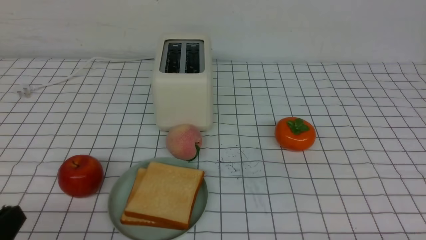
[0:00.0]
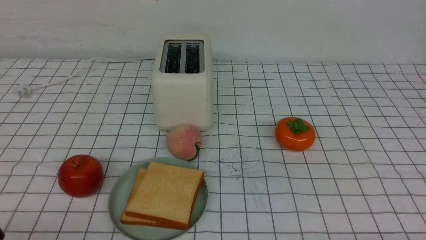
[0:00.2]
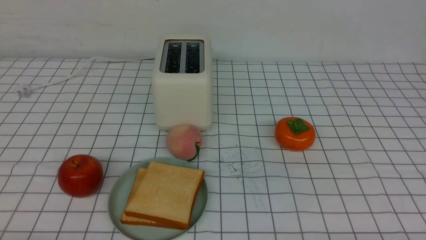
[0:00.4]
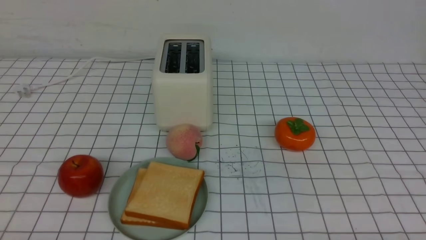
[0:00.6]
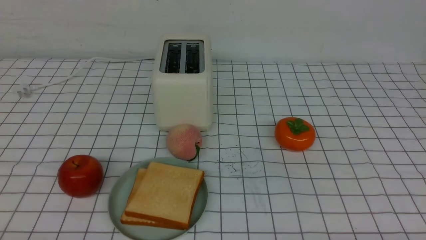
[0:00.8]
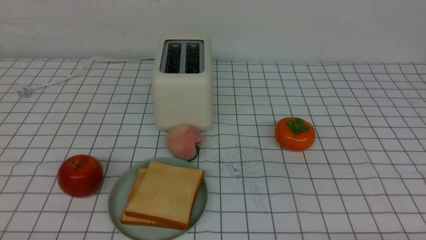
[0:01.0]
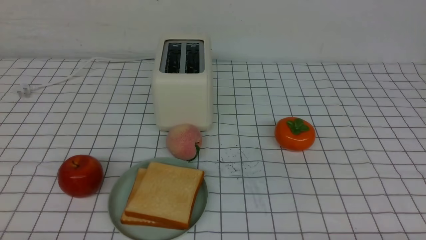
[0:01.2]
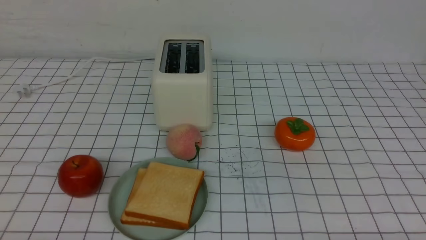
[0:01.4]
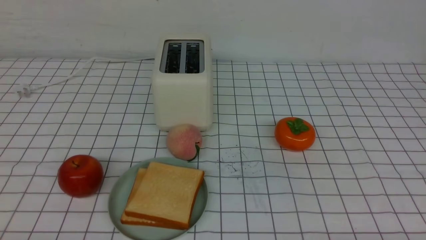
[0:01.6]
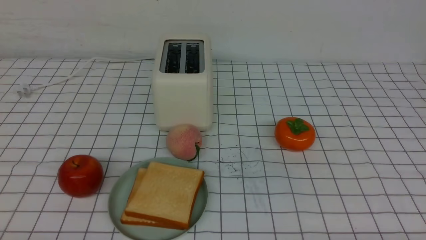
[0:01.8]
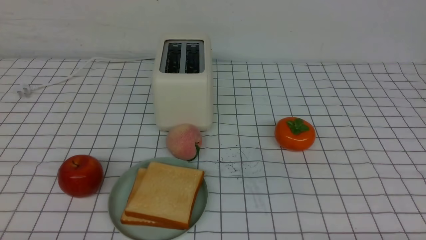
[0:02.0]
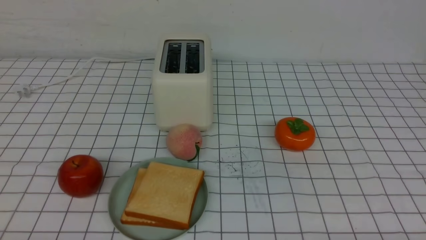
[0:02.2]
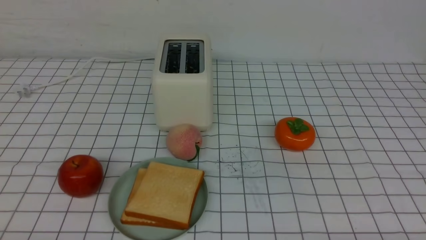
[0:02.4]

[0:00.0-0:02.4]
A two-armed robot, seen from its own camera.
Task of the whole recording: take toasted bread from bread machine on white checkered table place on plate.
0.0 to 1.2 s: The left gripper is displaced downward by roughly 5 cm.
1.2 to 2.4 s: Both grippers stay put.

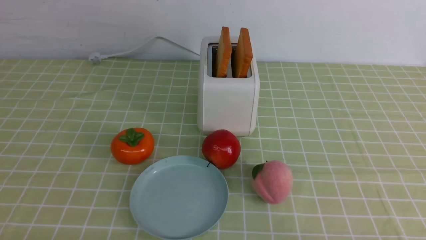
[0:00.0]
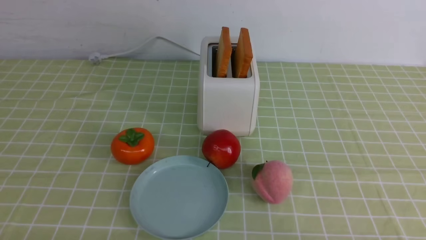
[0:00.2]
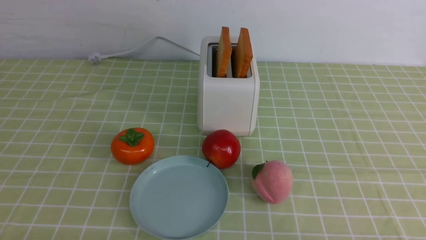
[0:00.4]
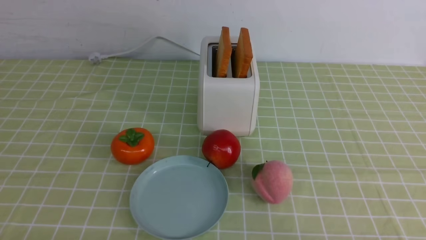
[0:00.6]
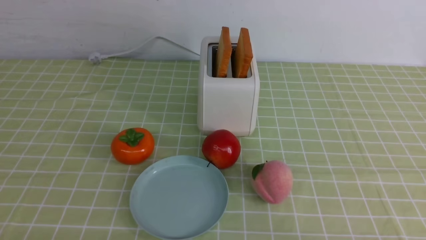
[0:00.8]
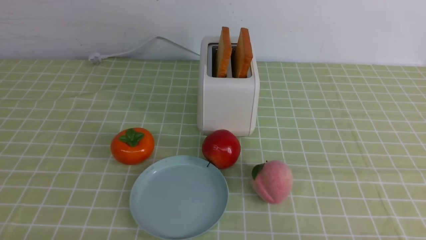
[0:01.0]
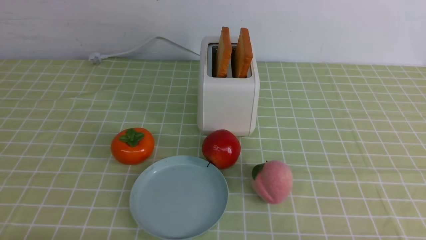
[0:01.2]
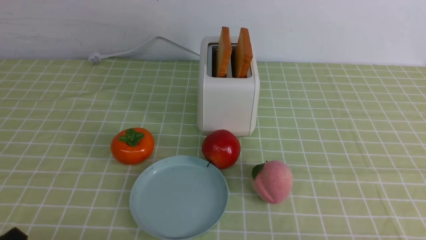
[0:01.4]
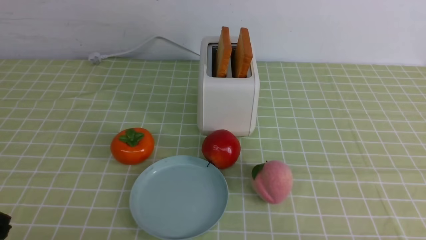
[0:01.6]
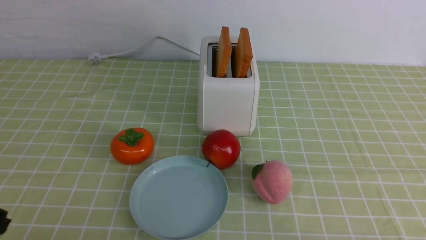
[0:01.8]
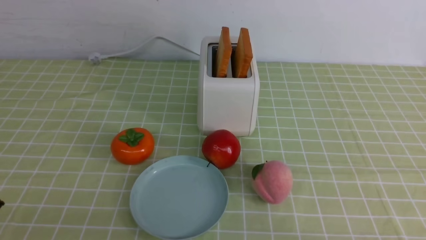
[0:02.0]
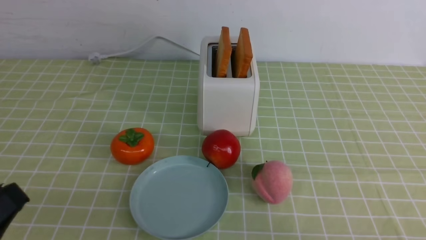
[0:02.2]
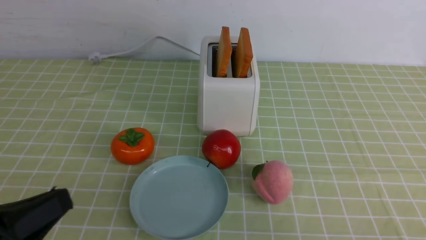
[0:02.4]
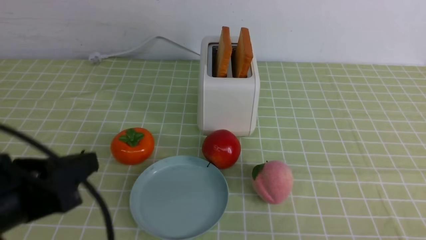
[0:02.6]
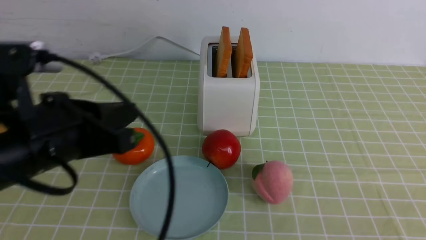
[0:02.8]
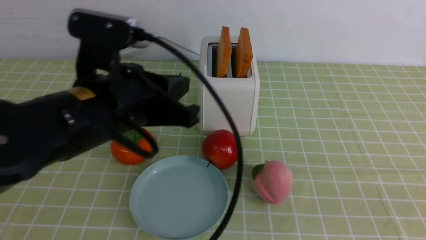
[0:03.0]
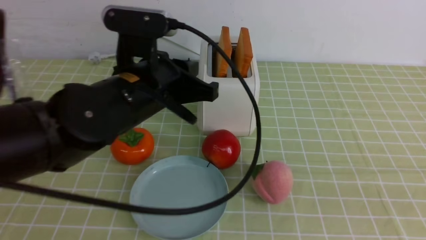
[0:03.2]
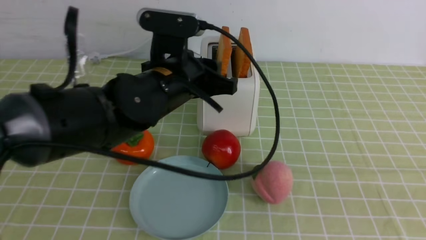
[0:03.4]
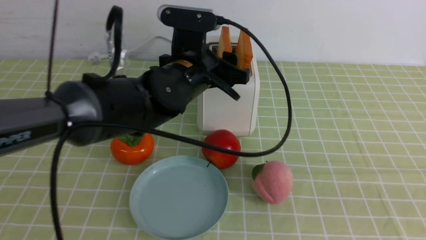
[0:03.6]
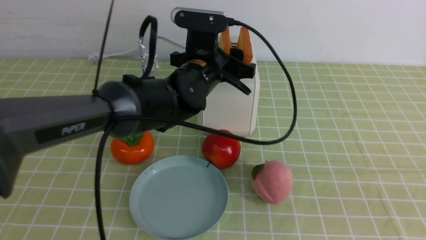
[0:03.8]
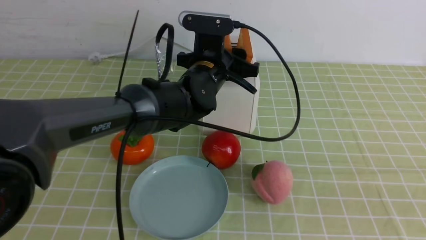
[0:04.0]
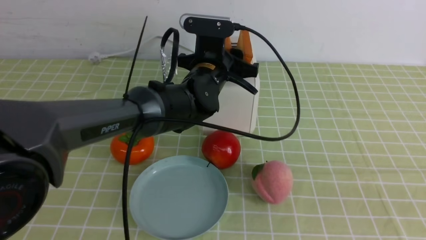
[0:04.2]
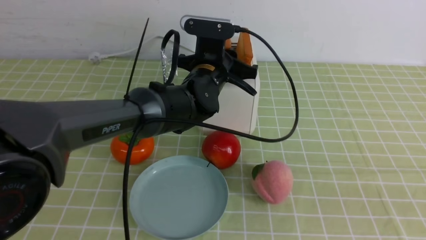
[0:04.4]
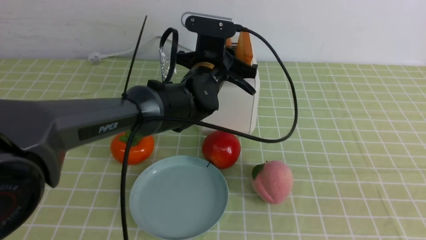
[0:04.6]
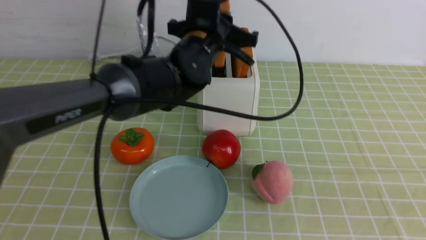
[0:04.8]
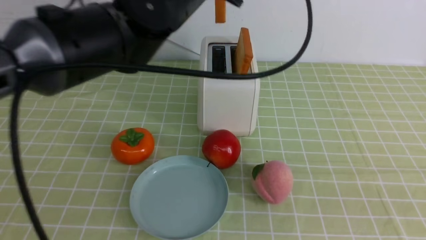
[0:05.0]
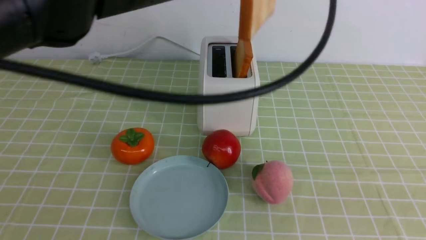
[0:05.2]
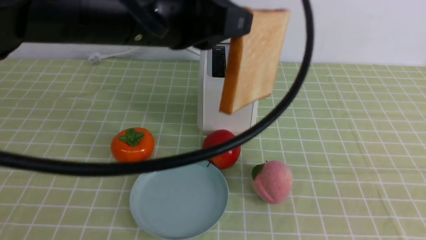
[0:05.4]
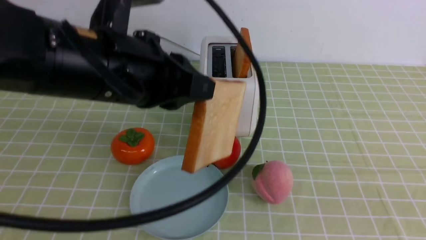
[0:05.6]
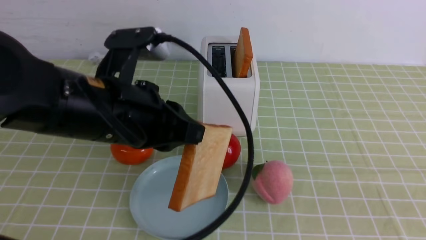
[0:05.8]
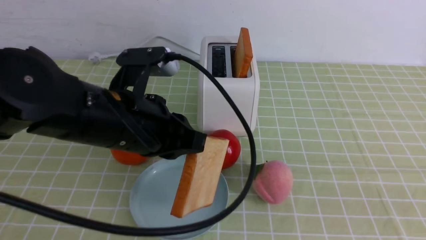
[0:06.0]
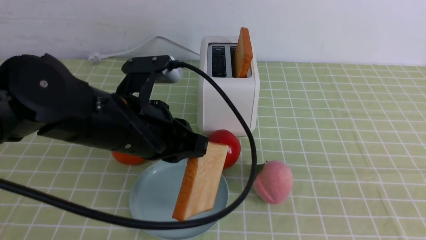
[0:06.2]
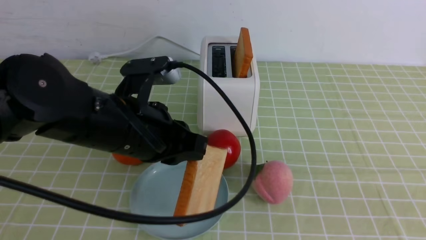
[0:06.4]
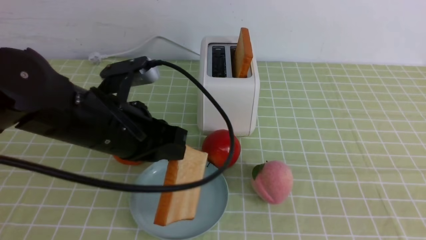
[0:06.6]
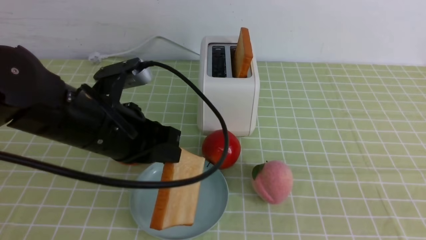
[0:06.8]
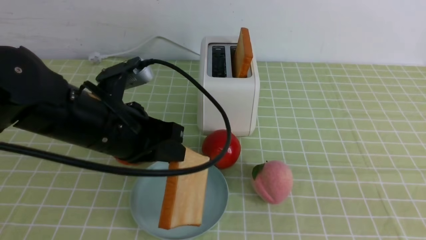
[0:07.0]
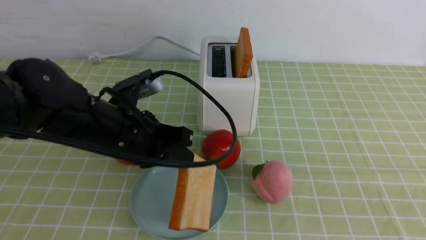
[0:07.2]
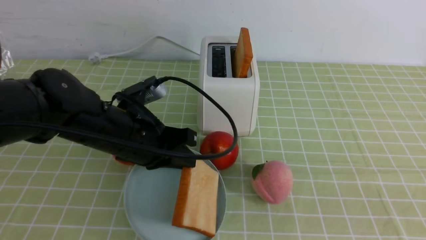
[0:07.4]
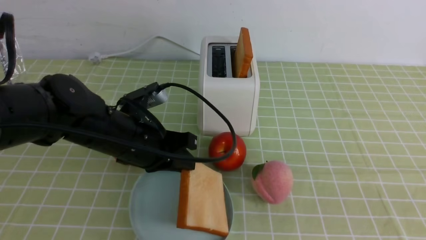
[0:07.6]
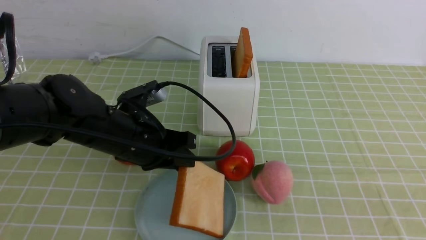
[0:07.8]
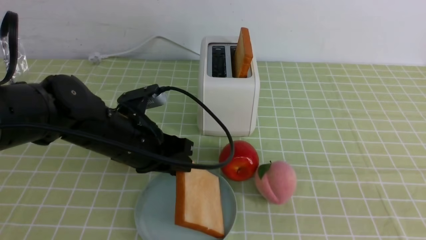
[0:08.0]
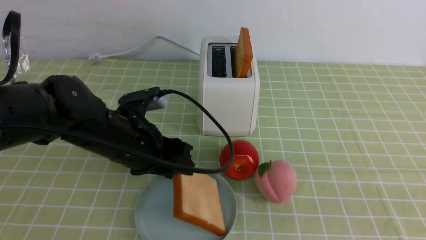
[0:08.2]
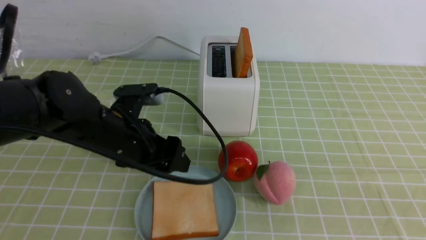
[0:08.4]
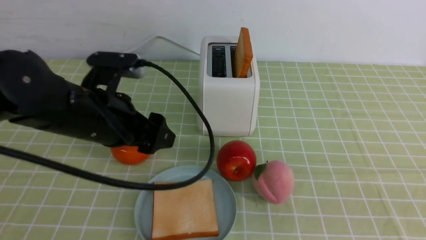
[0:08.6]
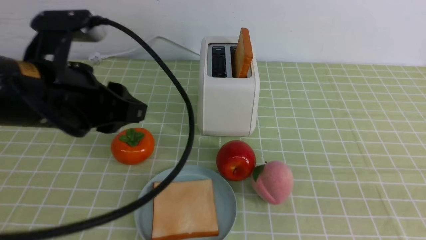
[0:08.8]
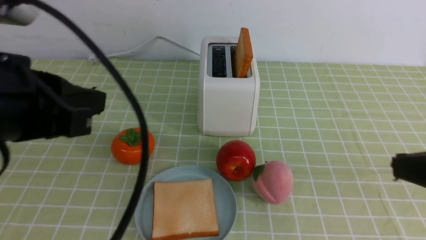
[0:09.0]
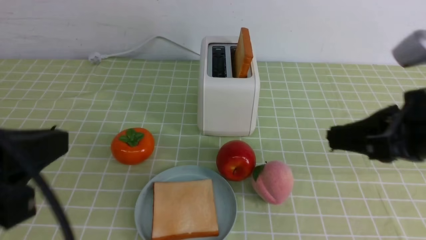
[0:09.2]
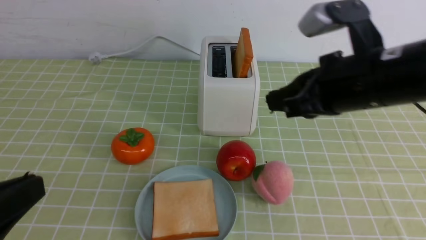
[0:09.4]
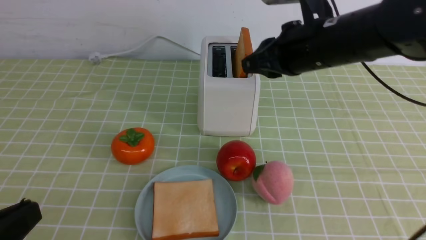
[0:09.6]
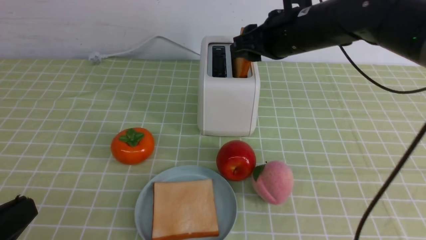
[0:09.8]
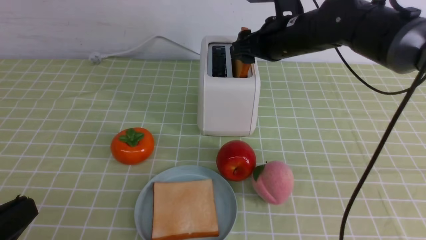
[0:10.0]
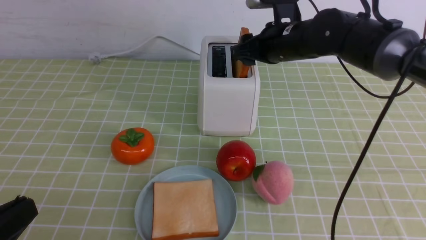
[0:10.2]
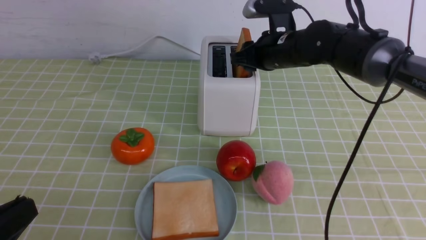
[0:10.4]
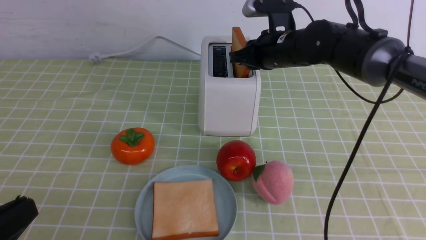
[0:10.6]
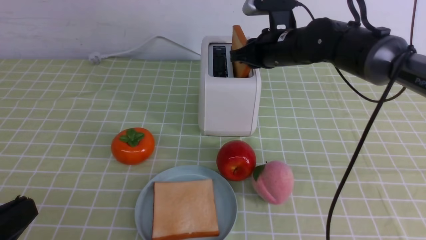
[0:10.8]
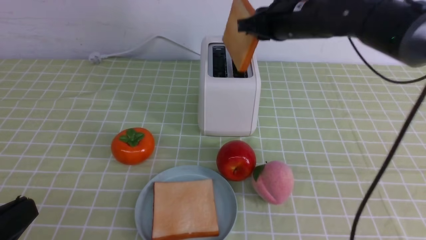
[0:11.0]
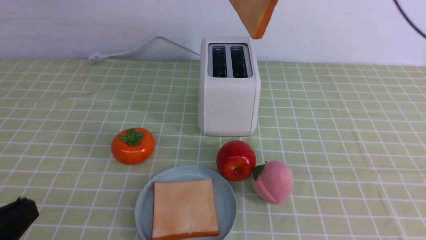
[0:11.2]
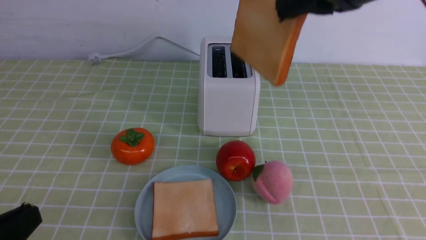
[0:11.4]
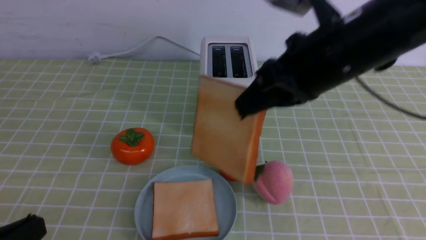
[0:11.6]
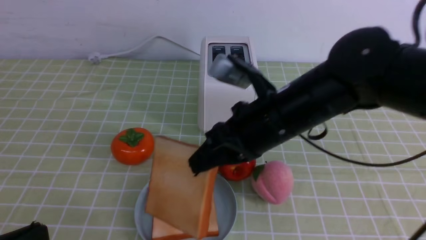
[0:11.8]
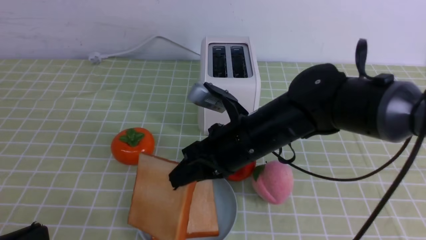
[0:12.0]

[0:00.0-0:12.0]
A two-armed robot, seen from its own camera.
Task of the whole recording: take toasted bread from bread machine on green coffee tablecloth place on plate.
Step, 0.0 to 4.8 s: use the left arm to take out a slice of bread.
Step, 5.0 to 8.4 s: use the left arm to put a slice of bread into the empty plate.
Step, 8.8 to 11.0 s: use the right arm to take out a slice of bread.
1.6 to 3.0 s: The right gripper is displaced upward by about 15 cm, and closes up; the left gripper shifts roughly 25 cm forward, upward and to the right, and closes its fingers.
3.0 to 4.4 s: The left gripper shifts some 25 cm forward and to the right, and opens up. Meanwhile the right gripper moves upward, roughly 5 cm.
4.4 to 6.0 s: The left gripper is displaced backward and to the left by approximately 20 cm, and closes its fingers.
6.0 to 7.6 s: The left gripper heads downward and forward, covering some 10 cm.
7.6 to 9.0 s: The left gripper shifts roughly 20 cm upward, backward and to the left, and opens, then closes again, while the right gripper goes roughly 5 cm forward.
9.0 to 10.4 s: The right gripper goes roughly 35 cm forward, and opens. The left gripper is displaced backward, downward and to the left by roughly 15 cm.
10.4 to 12.0 s: The right gripper goes approximately 15 cm backward, and closes up.

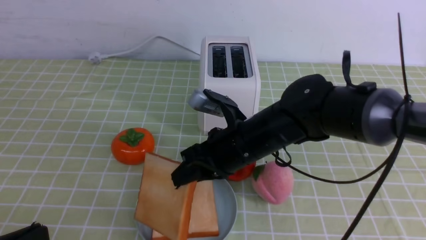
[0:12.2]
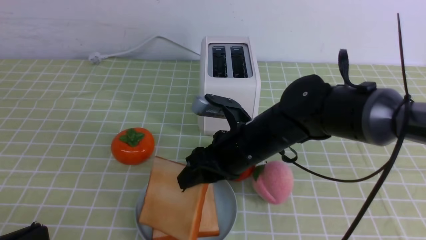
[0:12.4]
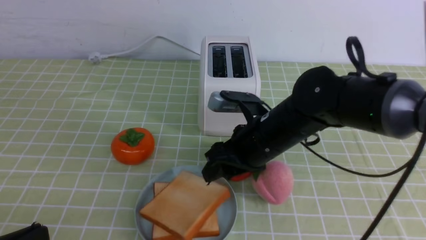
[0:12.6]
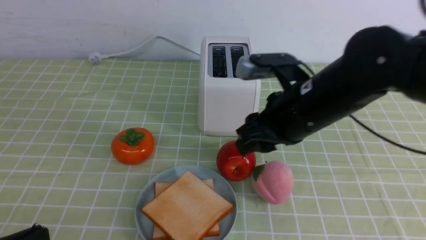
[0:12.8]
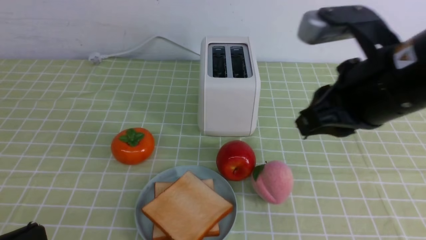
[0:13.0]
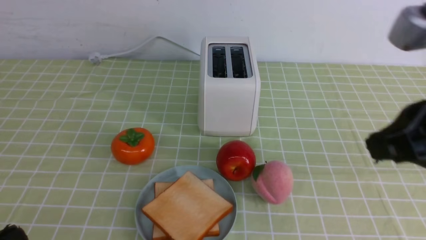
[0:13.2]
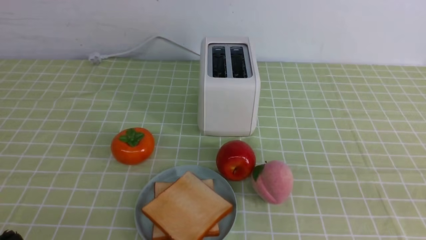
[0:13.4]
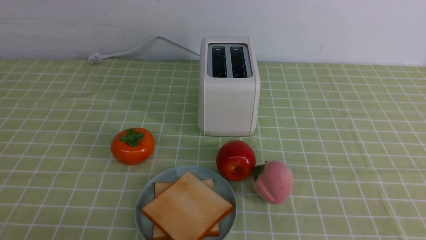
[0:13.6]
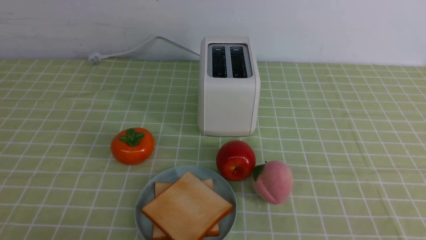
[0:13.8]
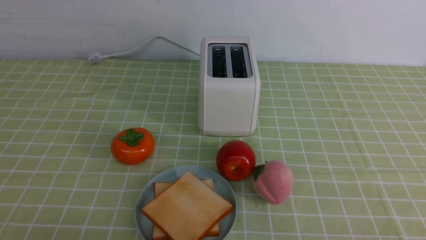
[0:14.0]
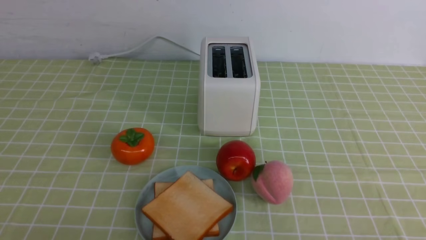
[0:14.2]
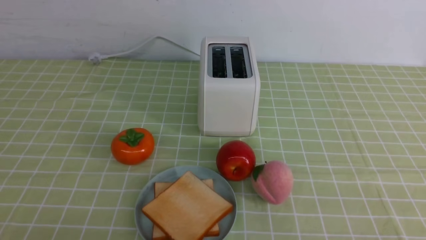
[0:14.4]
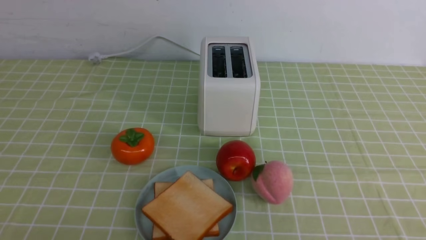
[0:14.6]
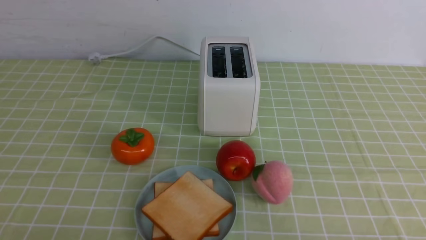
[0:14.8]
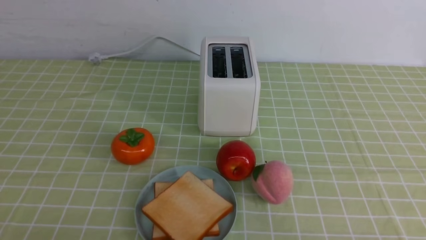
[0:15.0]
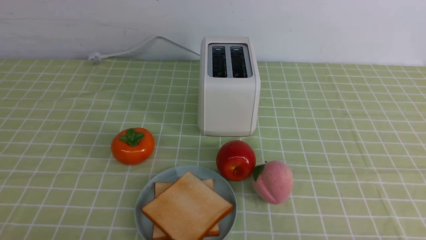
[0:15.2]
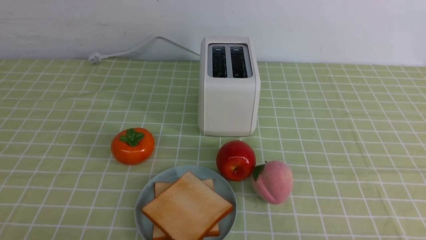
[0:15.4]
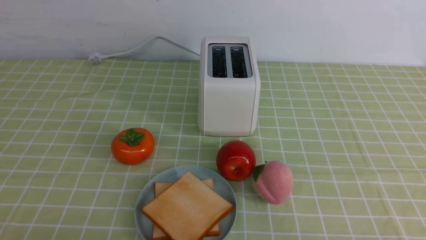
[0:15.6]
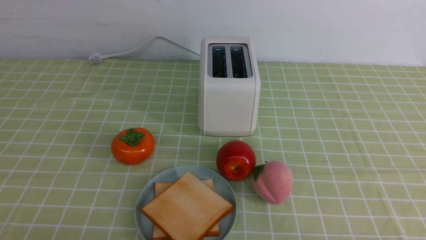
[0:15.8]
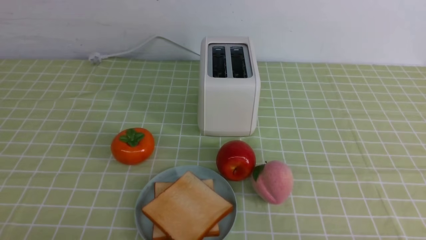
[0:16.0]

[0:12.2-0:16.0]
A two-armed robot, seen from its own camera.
Task of the whole recording: take toasted bread from bread machine on green coffee tablecloth place on plate.
12.2 to 13.4 s: The right gripper shifts roughly 30 cm to the right, backward and upward, and closes.
